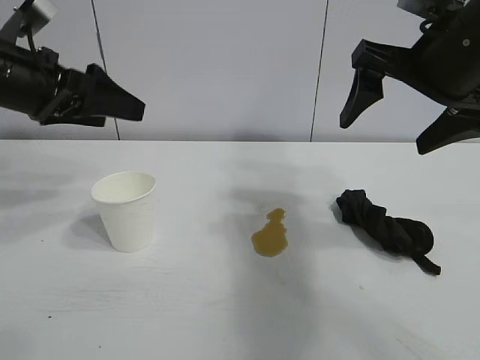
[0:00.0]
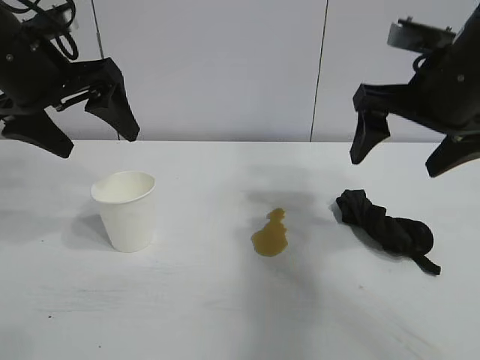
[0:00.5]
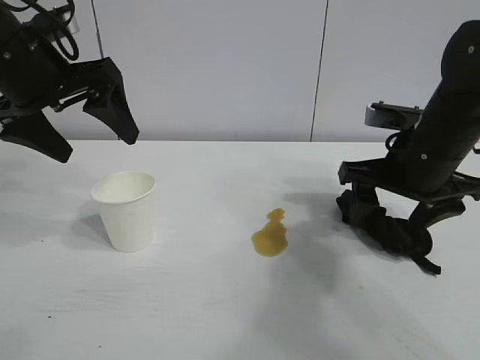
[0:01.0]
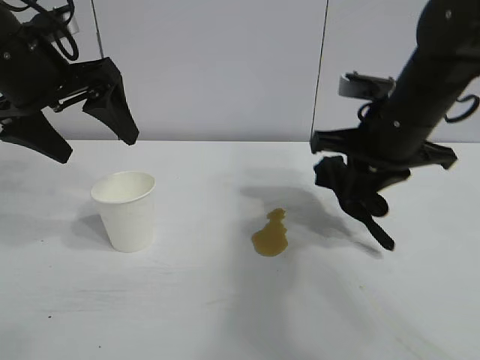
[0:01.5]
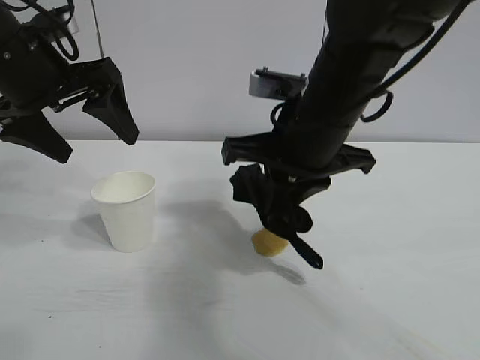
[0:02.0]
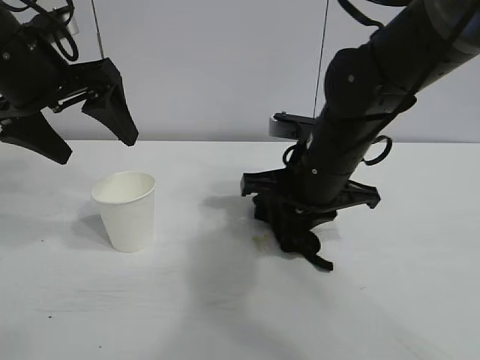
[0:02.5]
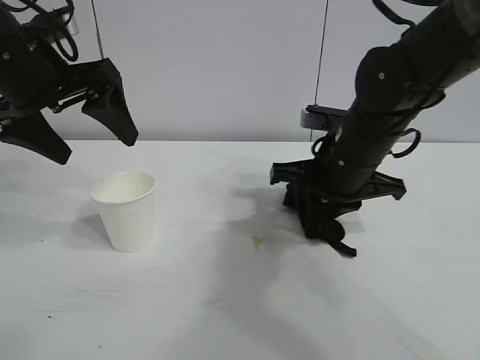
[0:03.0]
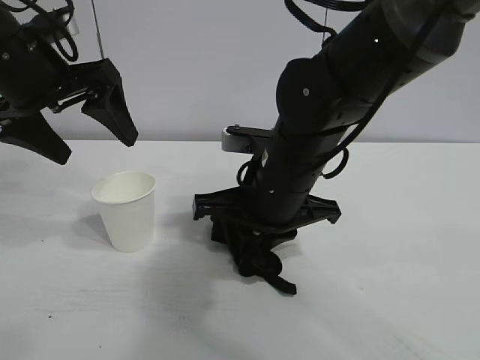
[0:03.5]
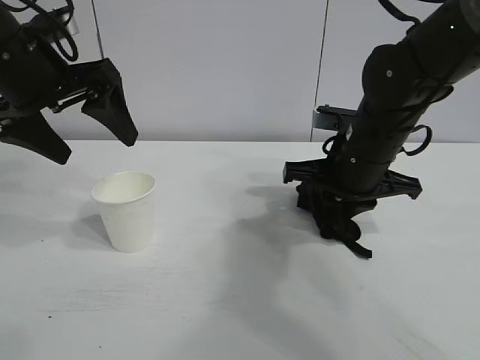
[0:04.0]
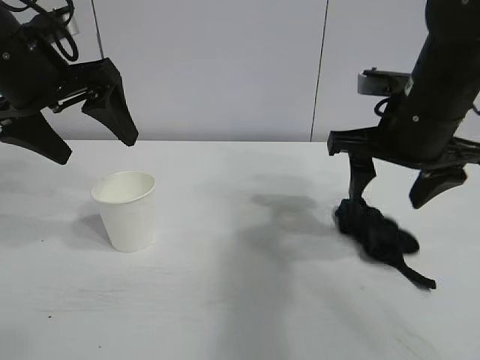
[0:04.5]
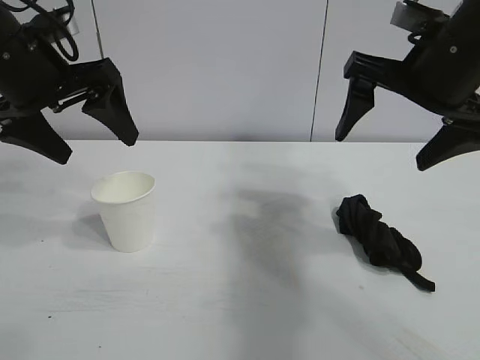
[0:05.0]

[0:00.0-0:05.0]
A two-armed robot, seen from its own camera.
Task of the whole recording: the left gripper pick up the fallen cup and place it upright, the right gripper grasp the black rag and wipe the stain on the table, the right gripper put the black rag back in its original position.
Step, 0:00.0 to 0:01.0: Grasp the rag with right gripper.
Step, 0:01.5 to 0:04.0: Wipe the stains off the table with the rag with right gripper.
